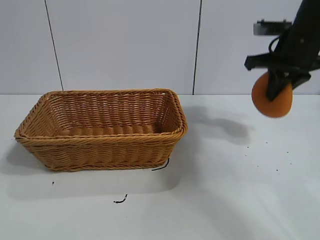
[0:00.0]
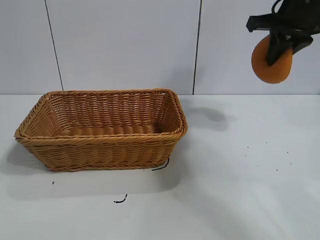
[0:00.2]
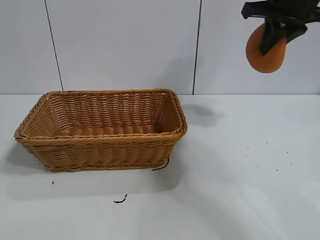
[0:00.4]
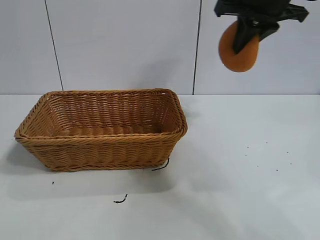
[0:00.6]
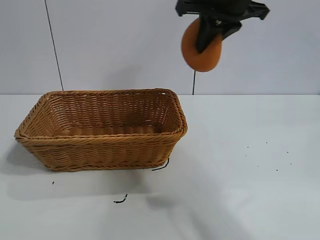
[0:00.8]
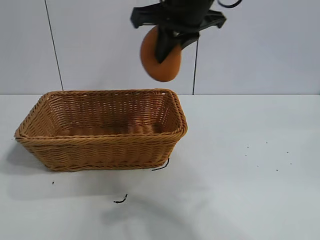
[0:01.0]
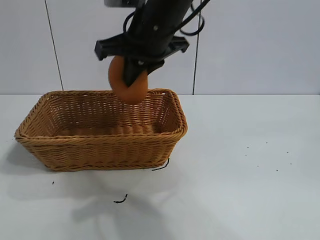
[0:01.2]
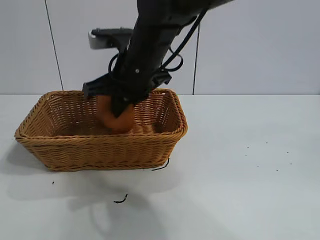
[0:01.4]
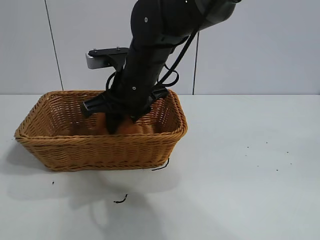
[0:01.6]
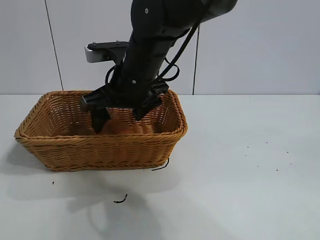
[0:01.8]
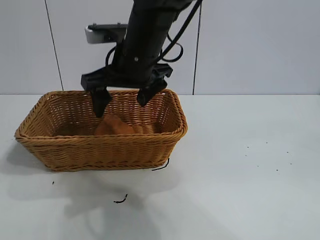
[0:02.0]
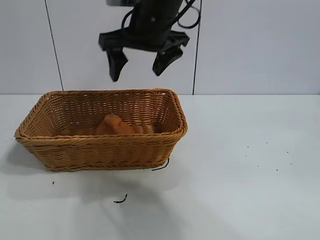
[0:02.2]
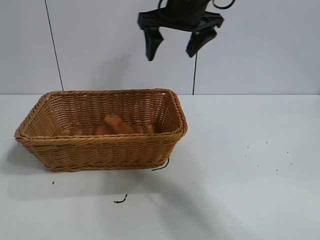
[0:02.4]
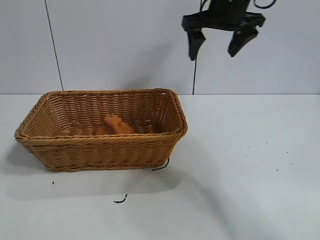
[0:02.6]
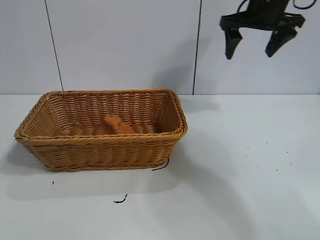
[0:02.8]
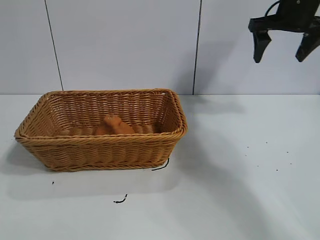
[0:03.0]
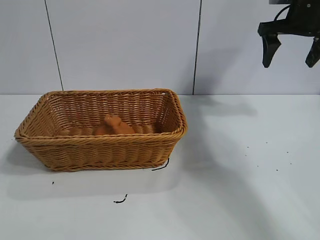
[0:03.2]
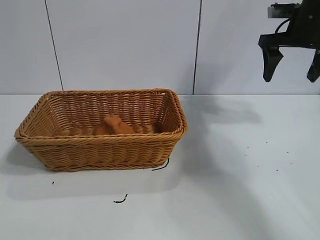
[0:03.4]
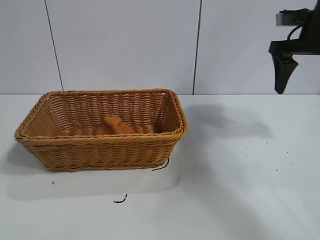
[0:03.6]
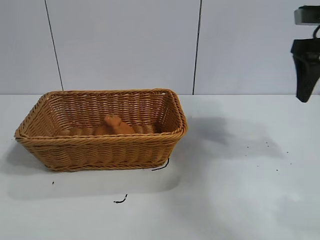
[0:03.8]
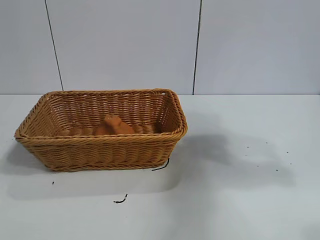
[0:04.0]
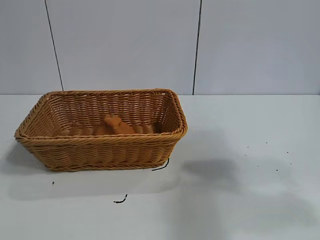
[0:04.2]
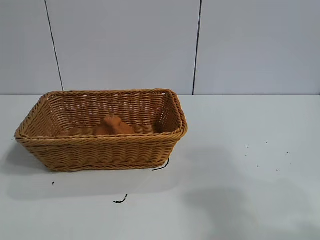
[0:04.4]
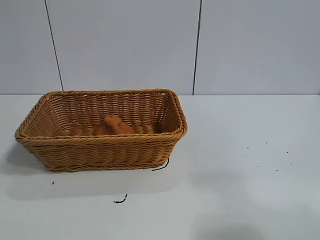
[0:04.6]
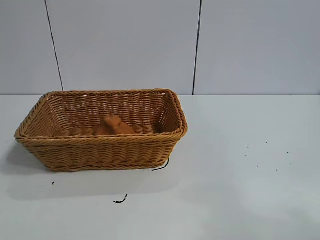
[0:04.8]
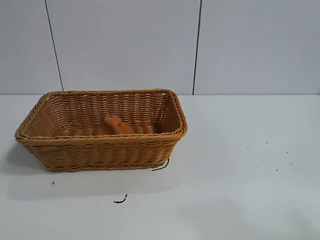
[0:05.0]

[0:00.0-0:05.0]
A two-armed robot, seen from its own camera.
Task of the whole recording: pick up the orange and put it into the basket.
Step, 0:00.0 to 0:01.8: Place the orange in the basket with right gripper.

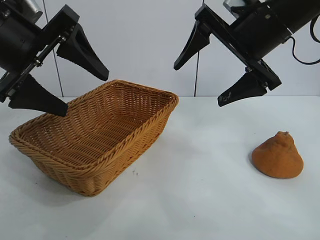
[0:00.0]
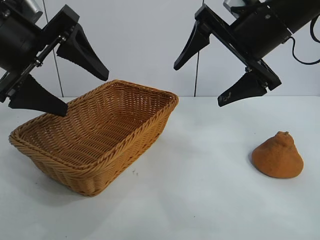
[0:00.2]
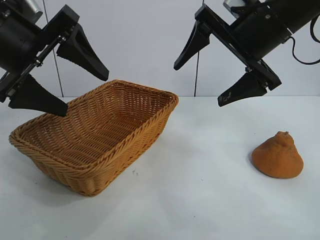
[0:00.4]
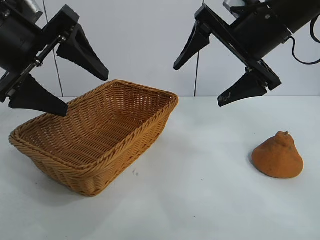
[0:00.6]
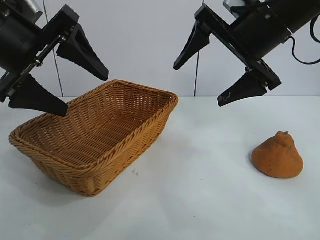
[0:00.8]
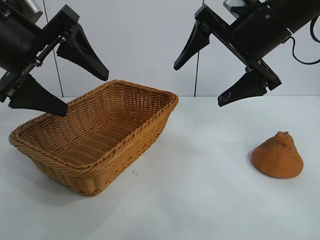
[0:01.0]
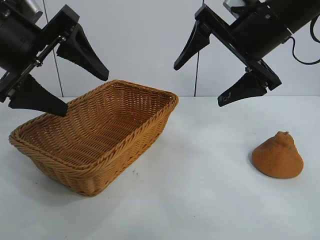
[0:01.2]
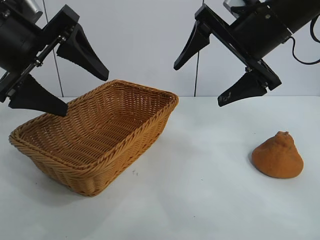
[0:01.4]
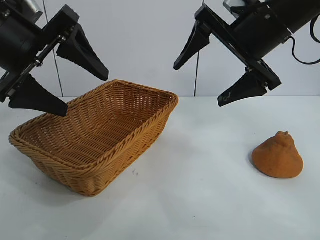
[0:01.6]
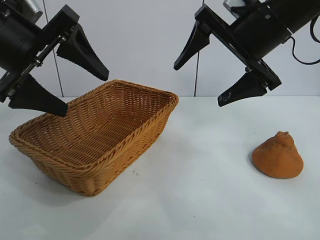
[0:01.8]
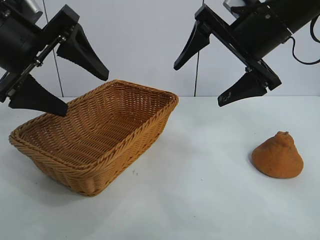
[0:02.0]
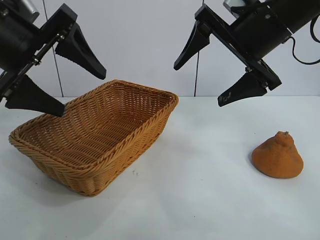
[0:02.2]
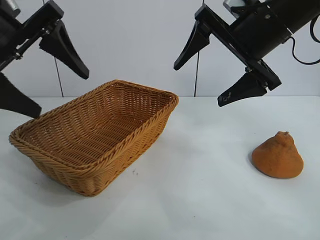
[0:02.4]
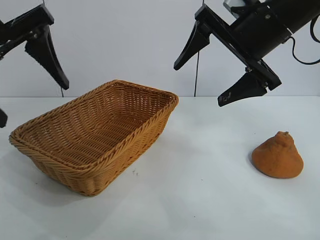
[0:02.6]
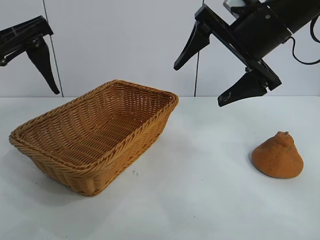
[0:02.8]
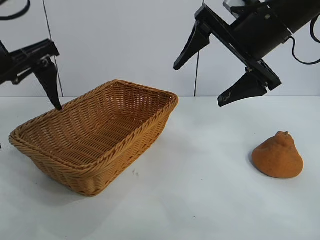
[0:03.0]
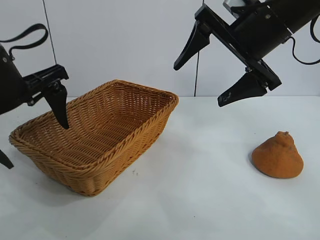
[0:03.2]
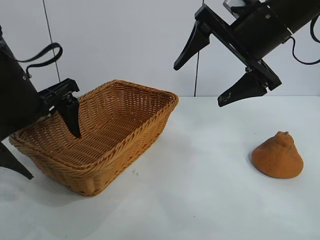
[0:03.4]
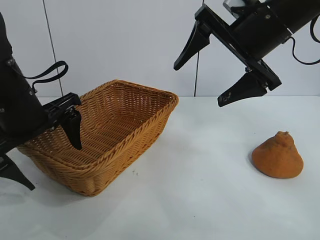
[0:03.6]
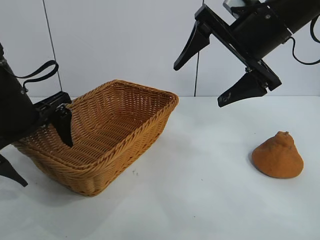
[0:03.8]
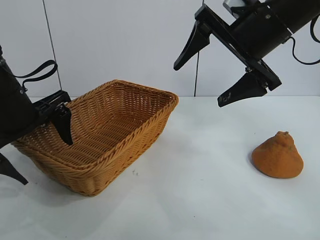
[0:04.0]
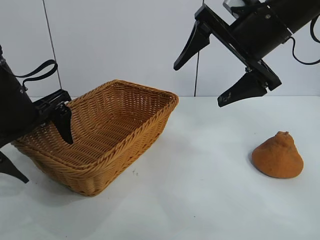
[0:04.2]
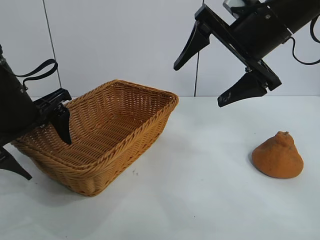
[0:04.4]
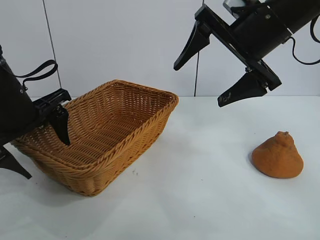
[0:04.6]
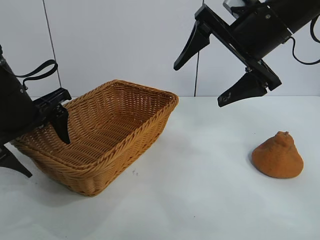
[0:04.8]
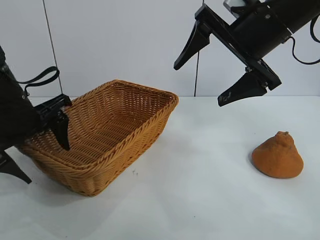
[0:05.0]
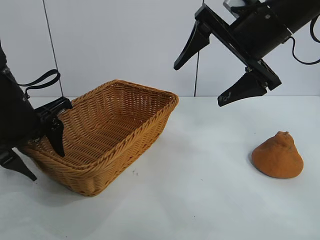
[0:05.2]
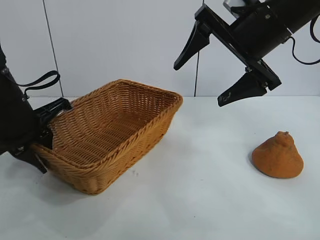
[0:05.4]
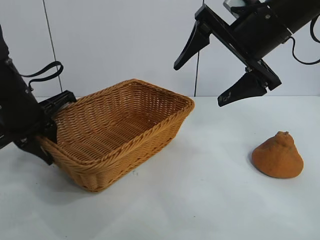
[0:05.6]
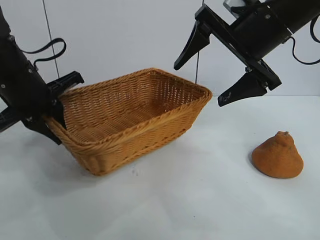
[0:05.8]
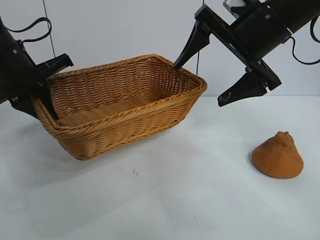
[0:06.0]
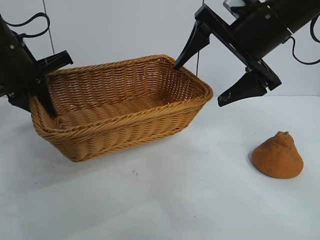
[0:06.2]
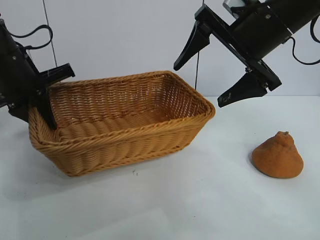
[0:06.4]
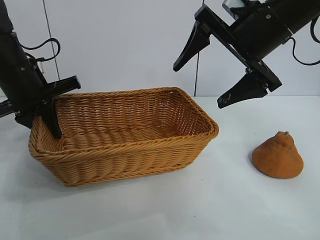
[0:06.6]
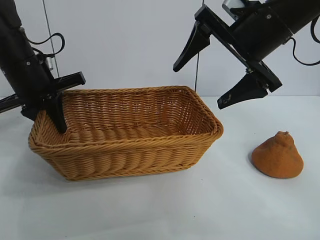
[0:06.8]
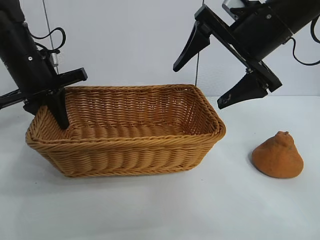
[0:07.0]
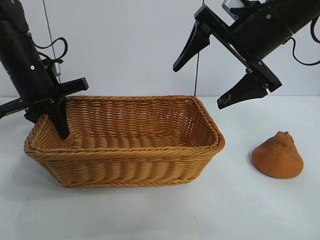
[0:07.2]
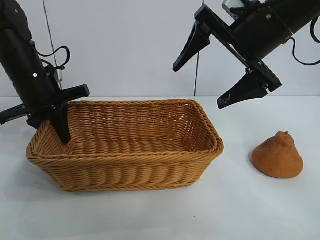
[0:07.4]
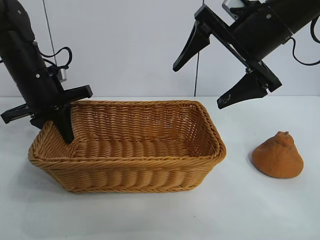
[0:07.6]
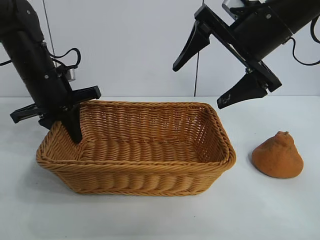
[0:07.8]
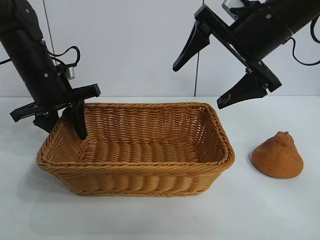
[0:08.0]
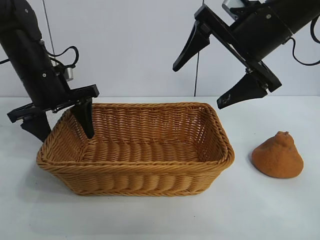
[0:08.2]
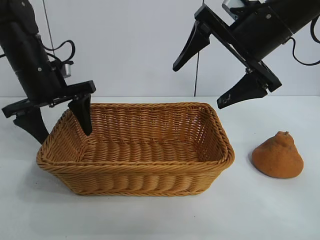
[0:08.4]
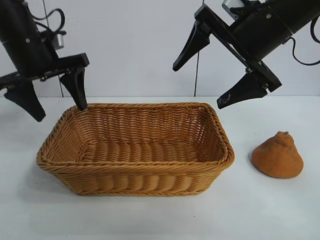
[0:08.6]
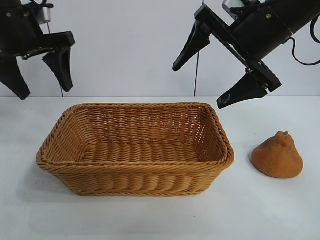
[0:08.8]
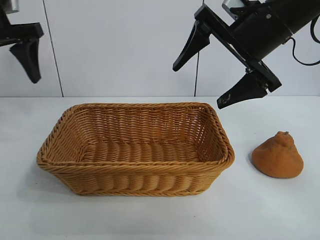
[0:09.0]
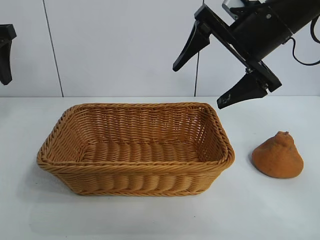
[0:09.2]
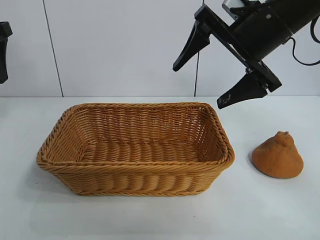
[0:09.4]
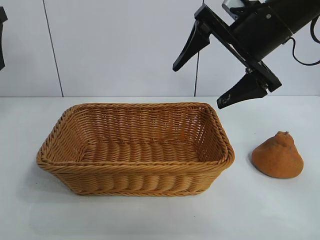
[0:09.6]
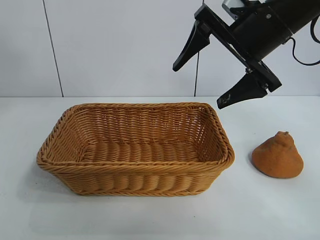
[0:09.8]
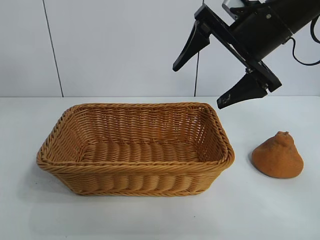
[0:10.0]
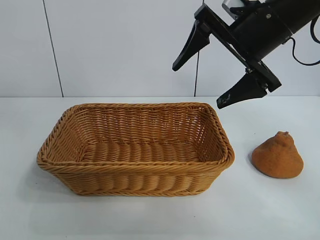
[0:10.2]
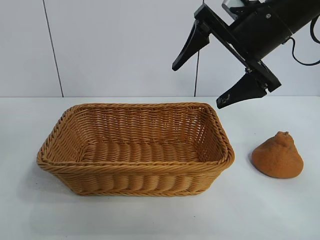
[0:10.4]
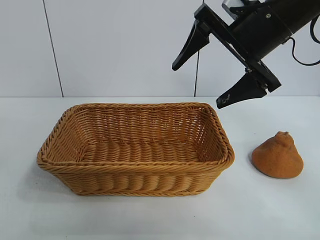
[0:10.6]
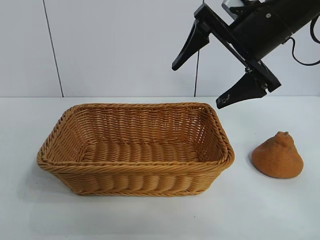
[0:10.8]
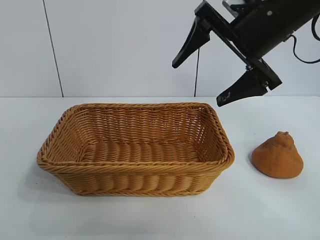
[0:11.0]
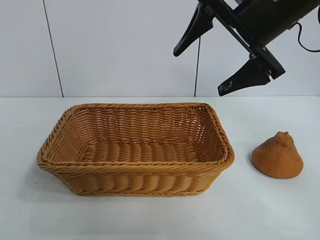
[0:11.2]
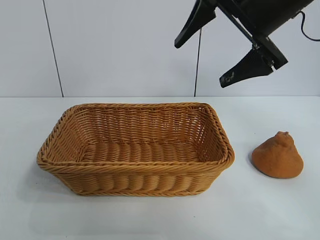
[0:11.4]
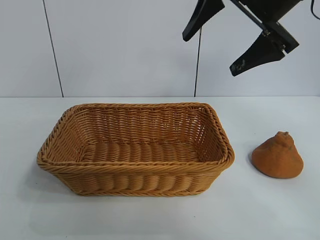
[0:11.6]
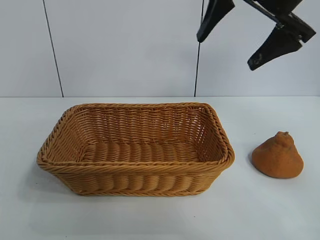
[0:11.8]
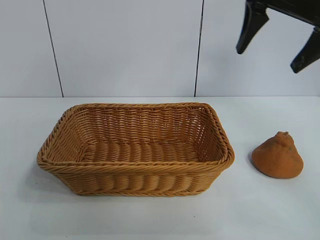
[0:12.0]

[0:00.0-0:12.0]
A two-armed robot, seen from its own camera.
Task of the whole recording: pick up the orange and put it into the basket.
Step, 0:01.6 to 0:05.4: Grasp the basket with left gripper.
Step, 0:05.6 to 0:08.4: Place the basket in the center of view with left gripper.

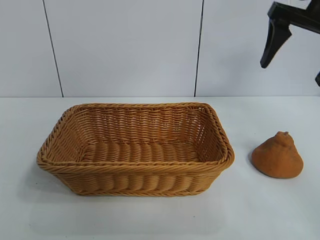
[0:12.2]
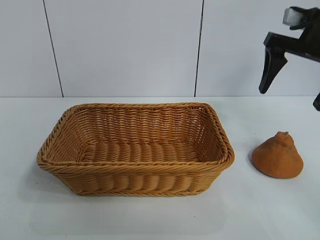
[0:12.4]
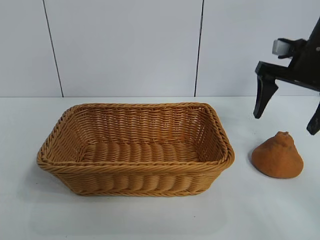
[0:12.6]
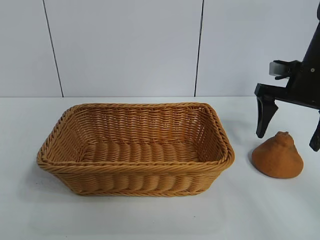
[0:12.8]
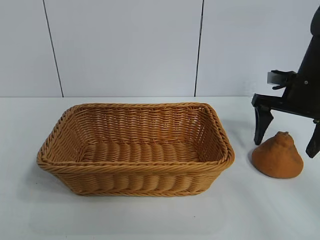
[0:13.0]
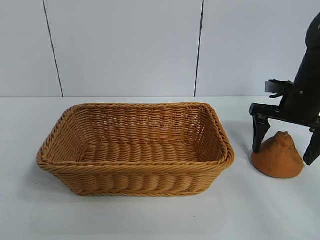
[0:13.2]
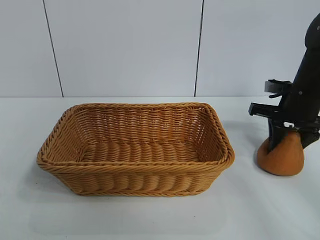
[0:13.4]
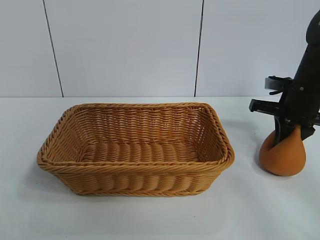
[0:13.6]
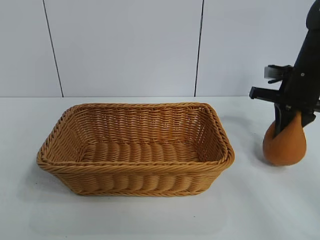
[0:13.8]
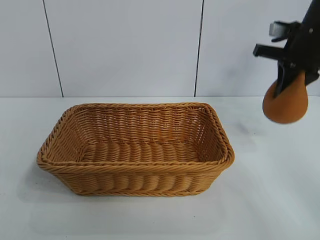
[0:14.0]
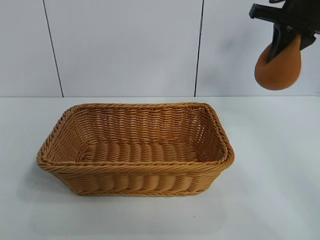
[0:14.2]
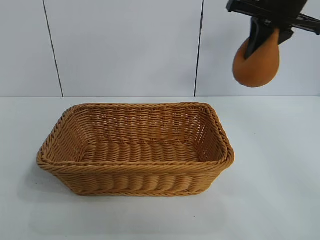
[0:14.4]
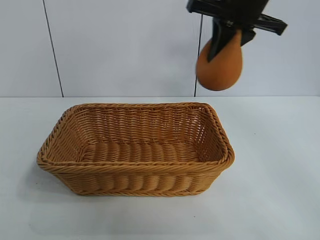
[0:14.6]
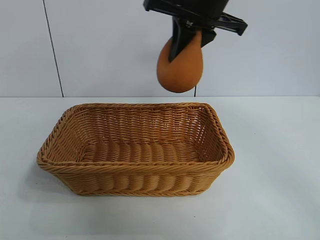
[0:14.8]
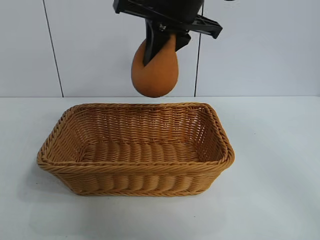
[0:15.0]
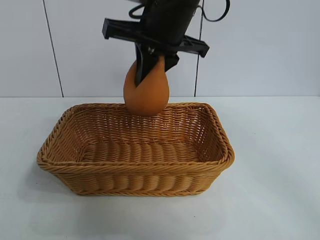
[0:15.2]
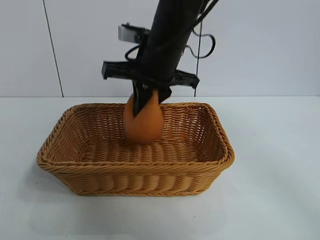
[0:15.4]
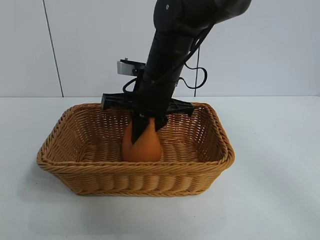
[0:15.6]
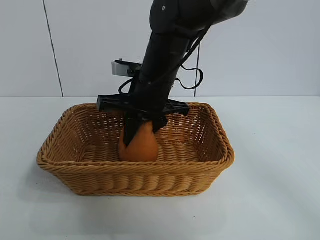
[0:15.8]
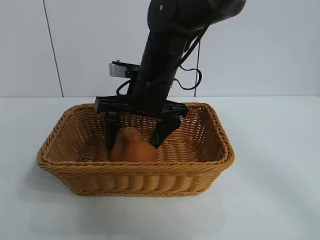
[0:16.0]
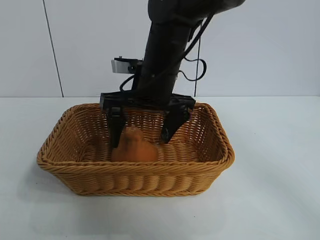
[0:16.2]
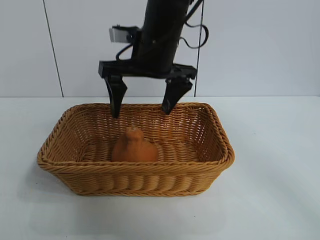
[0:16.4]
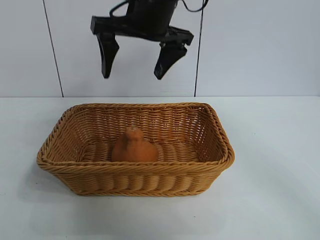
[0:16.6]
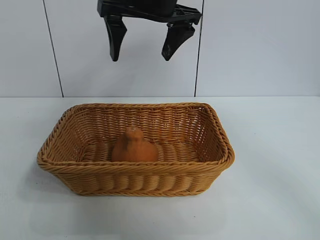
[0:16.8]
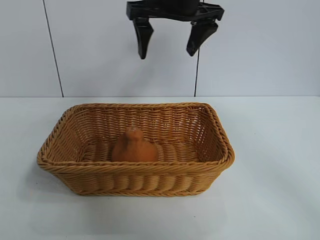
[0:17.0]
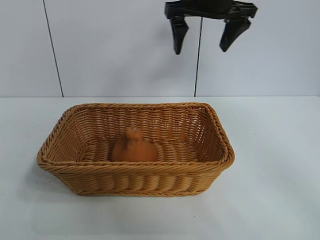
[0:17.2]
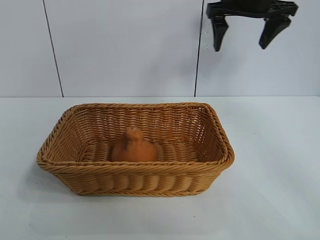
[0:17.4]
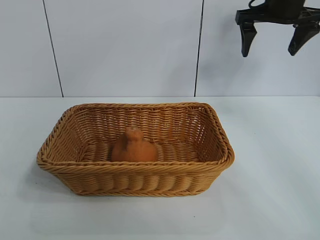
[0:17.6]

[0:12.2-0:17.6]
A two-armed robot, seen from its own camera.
Task of the whole recording: pick up the orange and put it into the basket.
Step, 0:13.8 to 0:16.4: Place the orange in the basket with right gripper.
